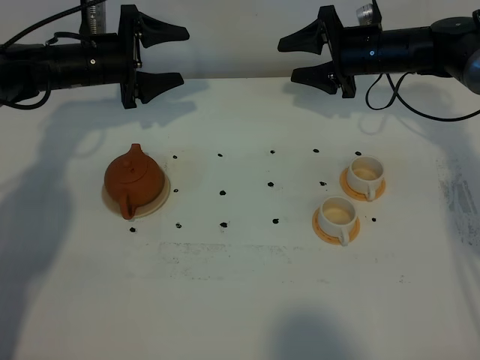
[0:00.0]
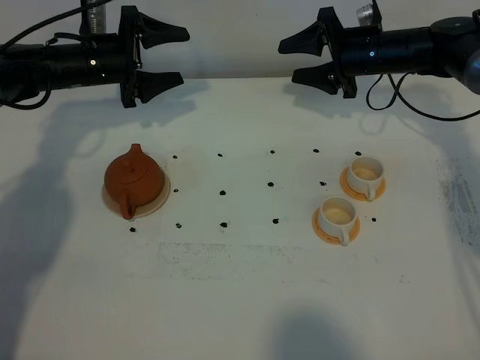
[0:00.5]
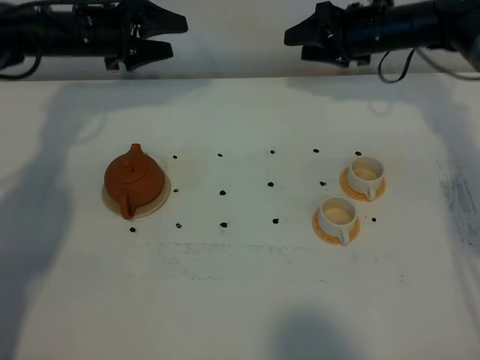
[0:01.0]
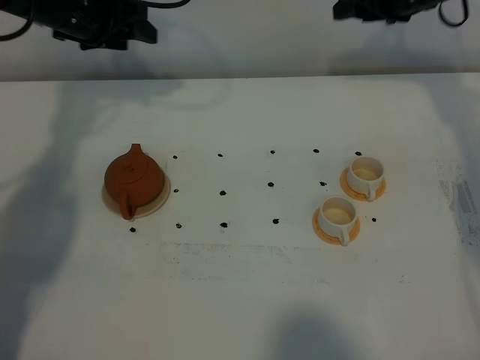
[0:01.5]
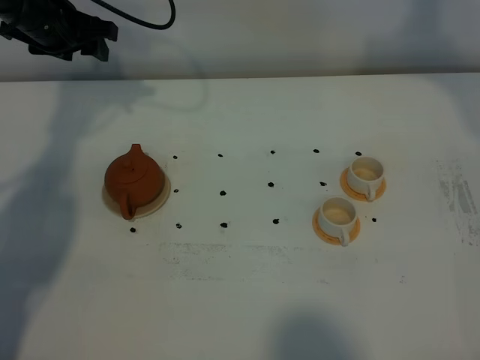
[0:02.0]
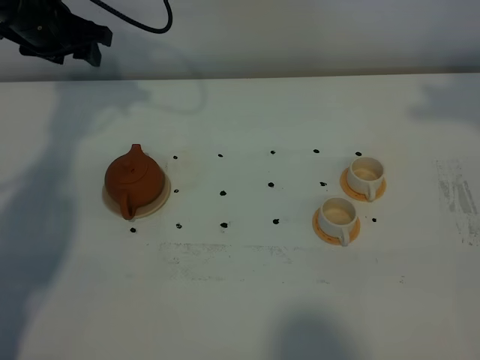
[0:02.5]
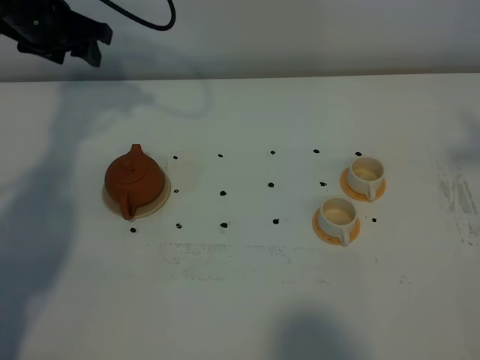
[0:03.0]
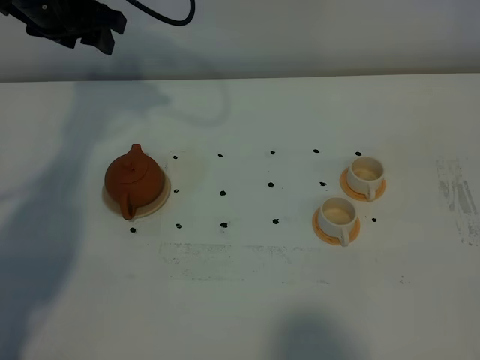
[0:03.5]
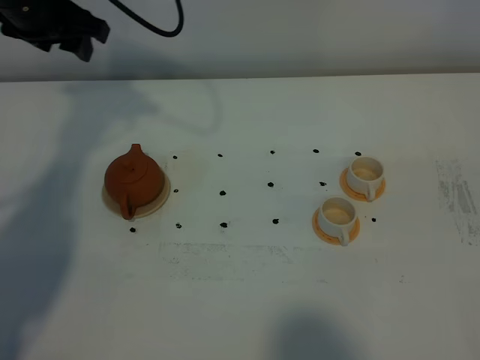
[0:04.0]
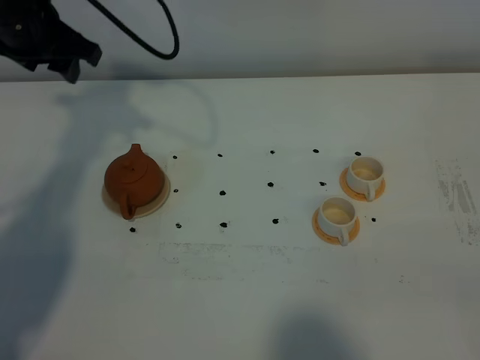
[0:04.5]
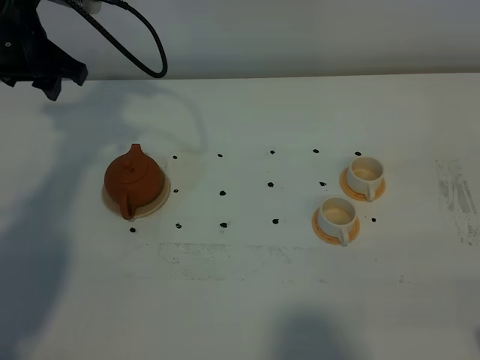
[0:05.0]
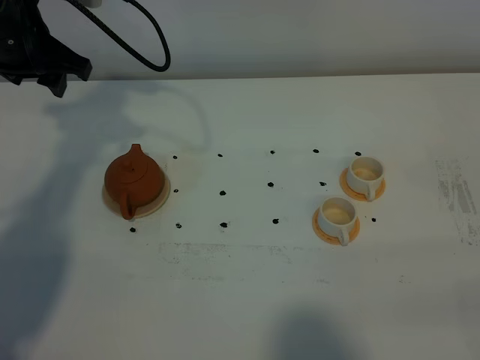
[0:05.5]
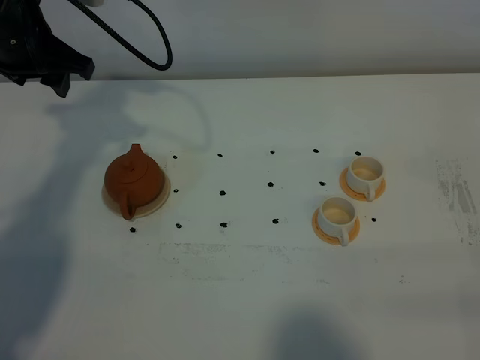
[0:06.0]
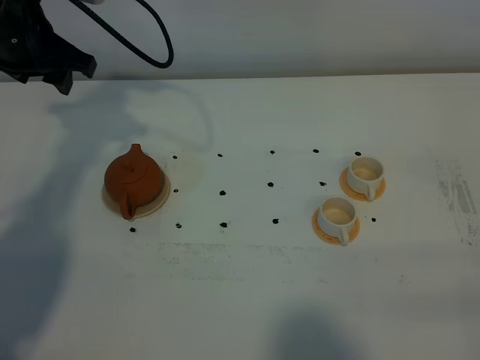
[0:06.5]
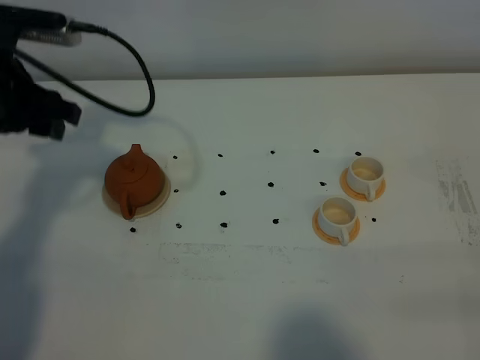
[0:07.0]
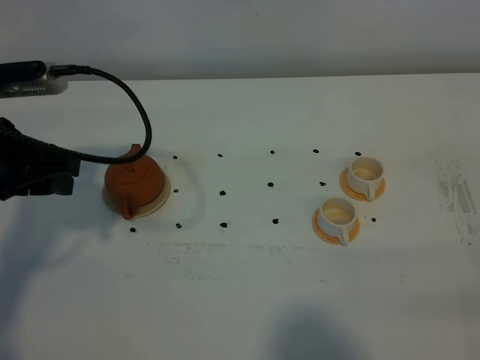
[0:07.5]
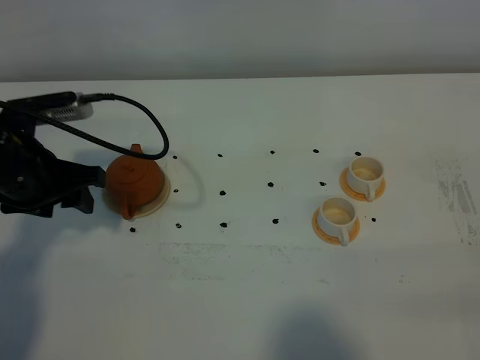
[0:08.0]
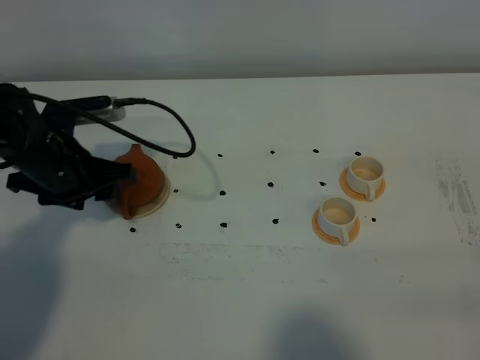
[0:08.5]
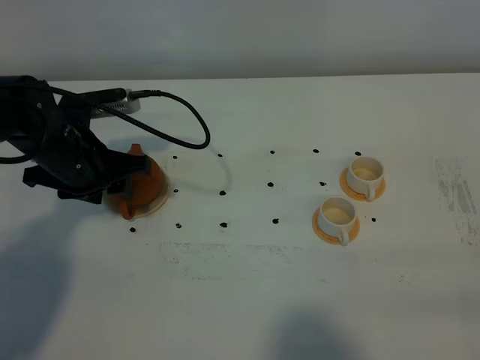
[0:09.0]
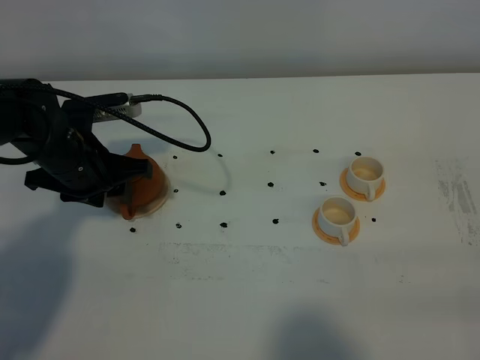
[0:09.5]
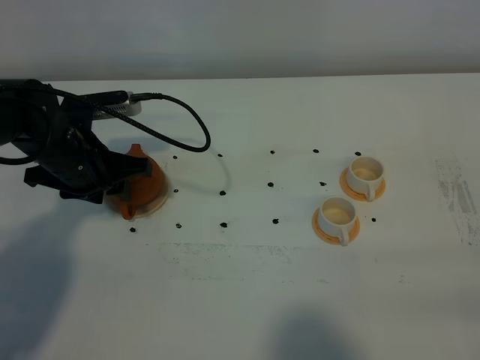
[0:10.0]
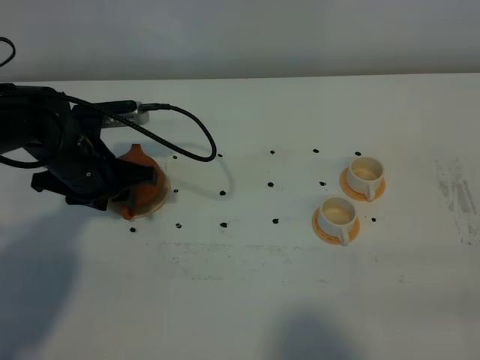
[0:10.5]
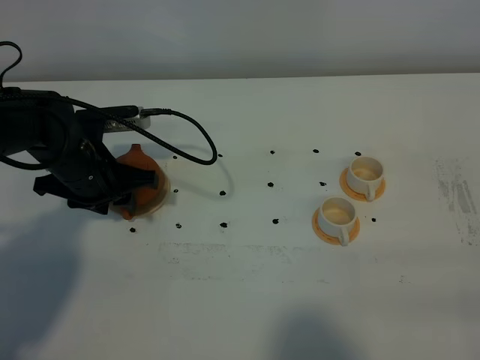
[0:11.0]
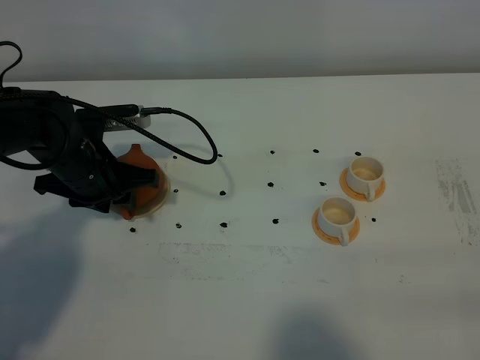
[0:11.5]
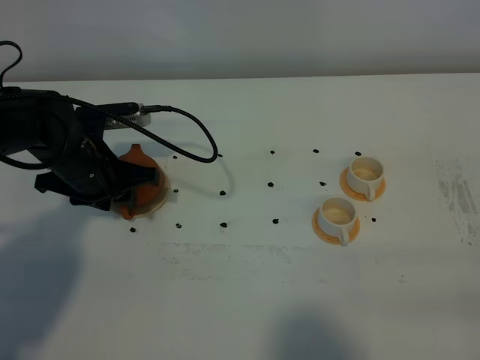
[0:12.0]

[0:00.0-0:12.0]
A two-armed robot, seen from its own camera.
Task of the whole recording: grasp the brown teapot and pour the tea into the two white teacups one by one, put the brown teapot back in its original place.
0:00.0 to 0:02.0: The right gripper shifts roughly 20 cm upward, while the left gripper moves upward, roughly 10 cm.
0:02.0 to 0:04.0: The left gripper travels upward and backward by roughly 10 cm.
0:06.0 to 0:08.0: The left gripper is displaced downward and backward by roughly 15 cm.
0:08.0 to 0:10.0: The left gripper shifts by some 5 cm.
0:10.0 to 0:12.0: The grippers stay close to where they were, moving slightly.

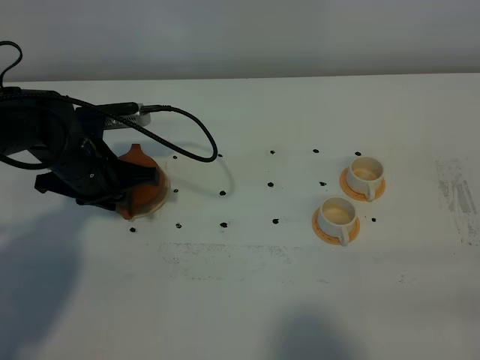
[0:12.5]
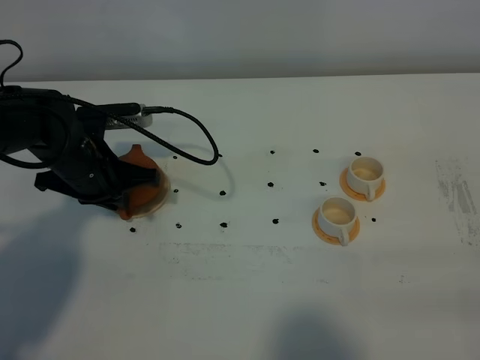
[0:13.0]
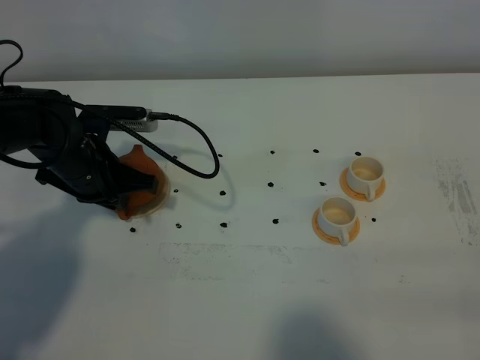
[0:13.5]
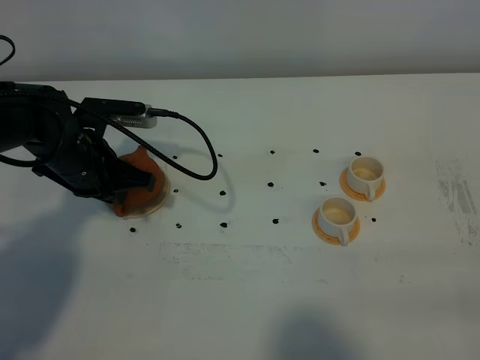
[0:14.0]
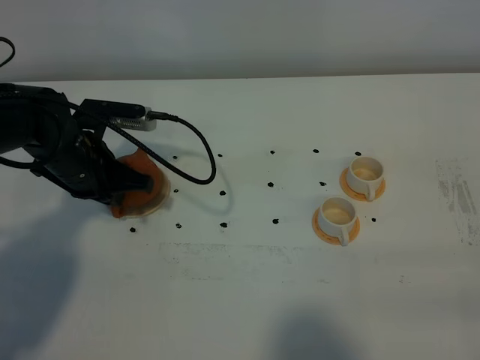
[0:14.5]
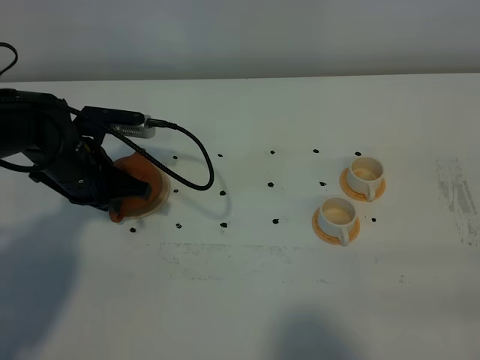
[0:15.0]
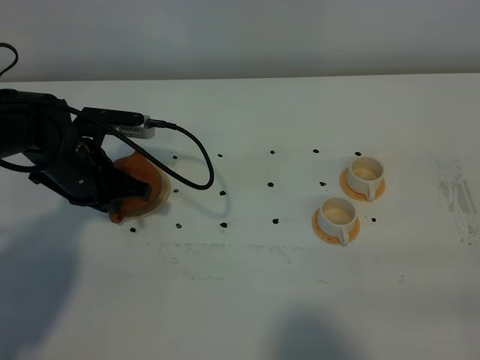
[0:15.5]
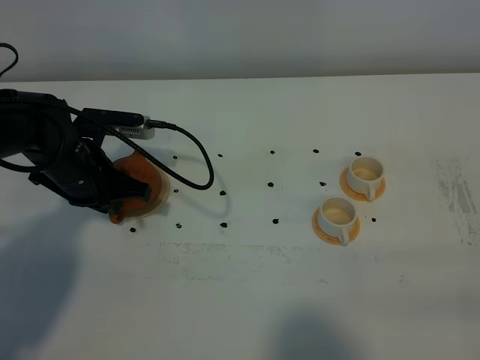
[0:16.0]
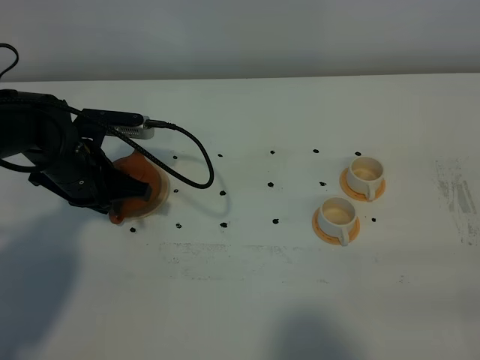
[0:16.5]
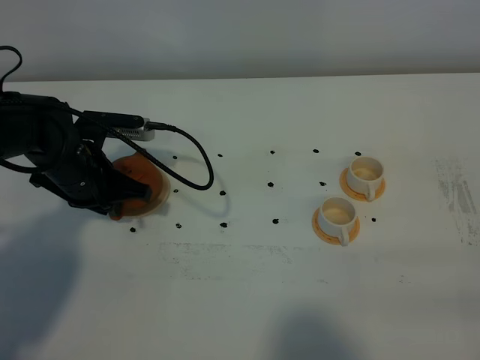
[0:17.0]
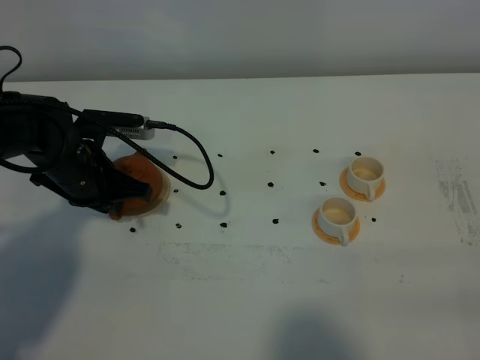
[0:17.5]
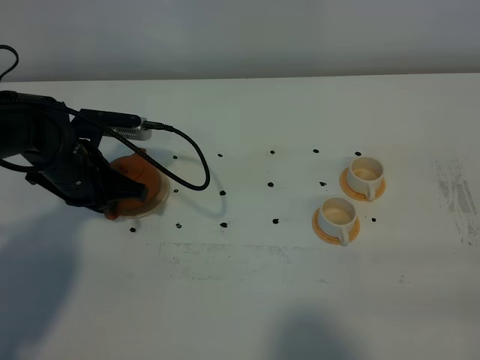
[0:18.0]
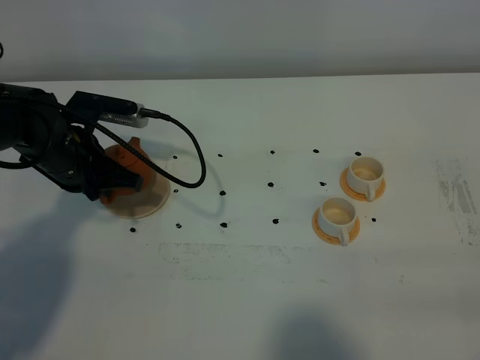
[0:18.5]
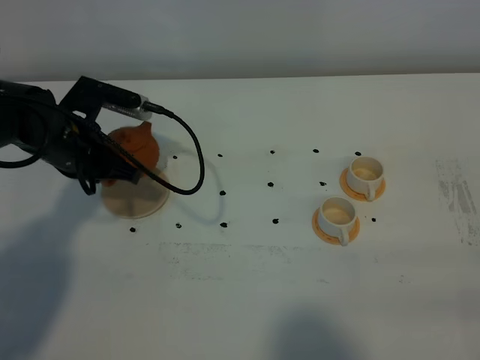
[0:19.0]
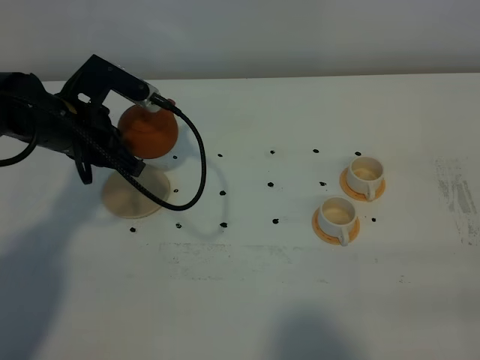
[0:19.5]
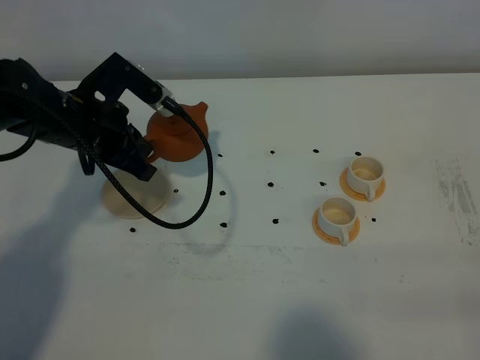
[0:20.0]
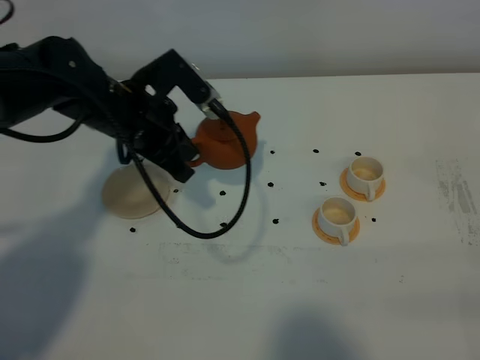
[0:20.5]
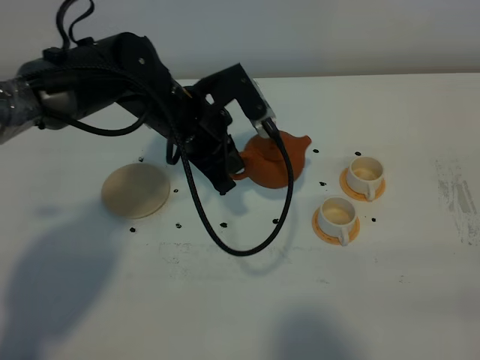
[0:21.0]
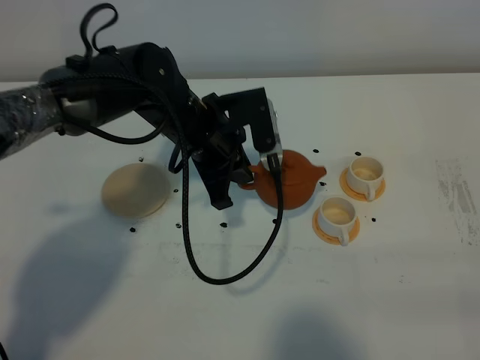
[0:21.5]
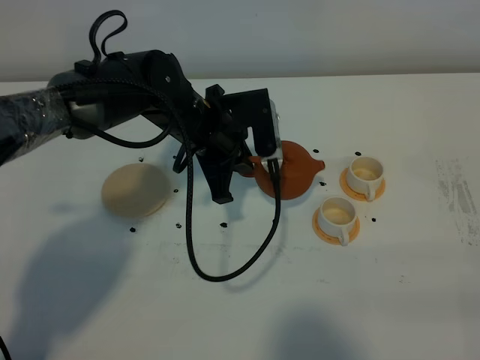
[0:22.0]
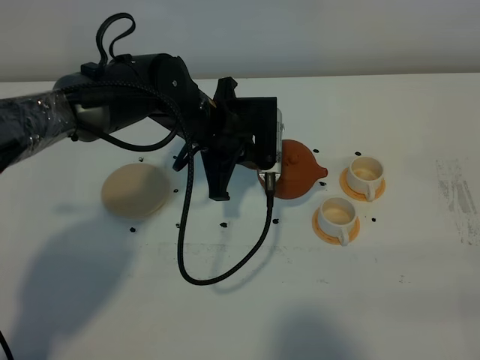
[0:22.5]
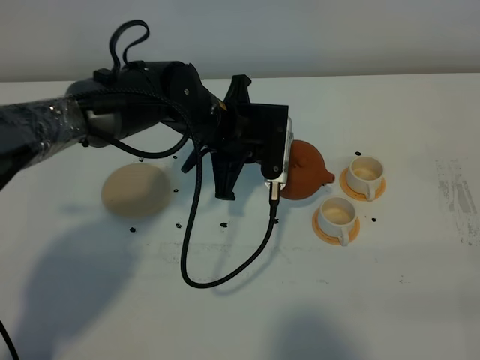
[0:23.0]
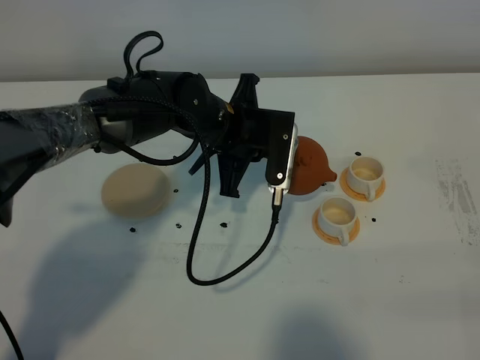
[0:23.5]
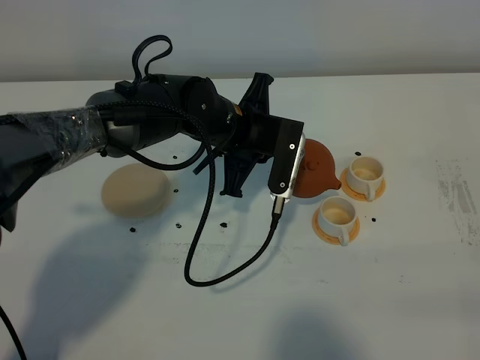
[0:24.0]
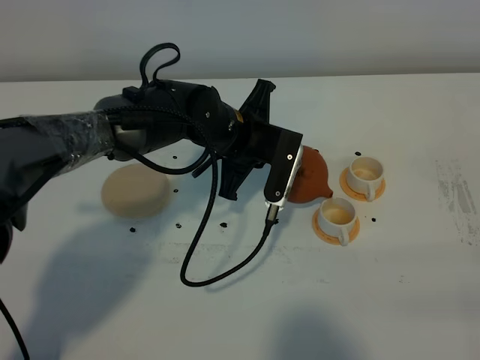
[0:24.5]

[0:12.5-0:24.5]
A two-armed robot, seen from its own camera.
Task of the whole recording: grasp the brown teapot and pour the tea into the two white teacups one by one, put the brown teapot back in its original place.
Step, 0:12.5 to 0:18.0: Pick up the teapot with the left gripper.
0:12.5 to 0:14.5: The grippers move only a little.
0:14.5 to 0:16.5: Both grippers stay about where they are.
0:16.5 to 0:18.5: The grippers make only small movements.
0:18.5 to 0:20.5: The left gripper goes some 10 cm to the right.
0:20.5 to 0:22.5: The left gripper is displaced to the right by roughly 10 cm.

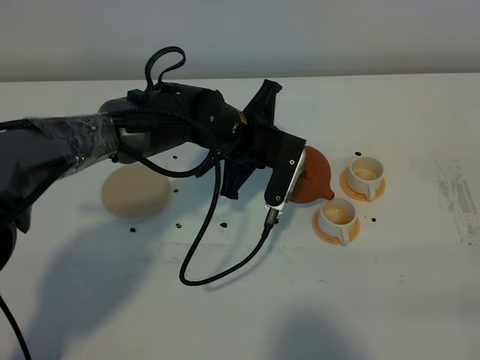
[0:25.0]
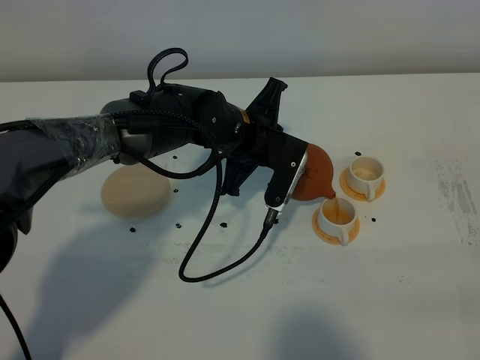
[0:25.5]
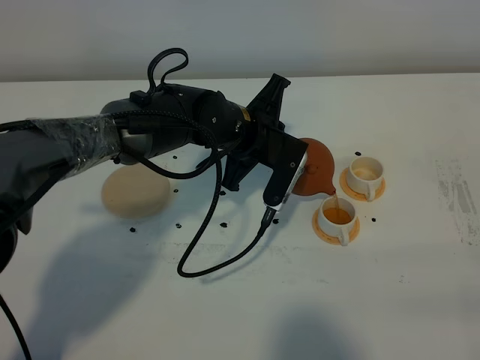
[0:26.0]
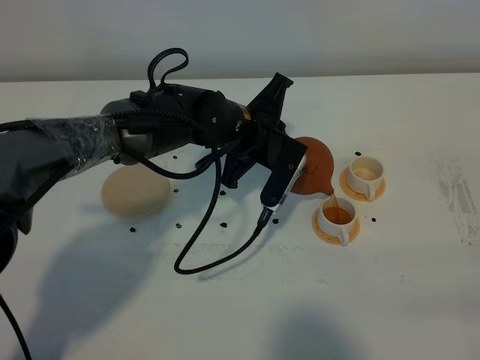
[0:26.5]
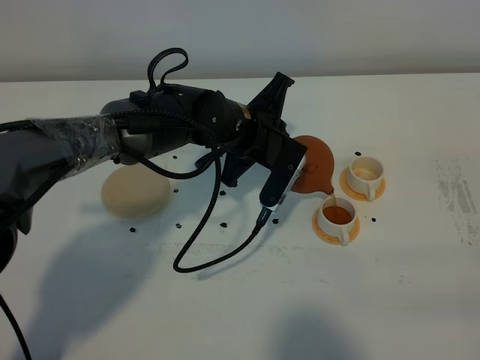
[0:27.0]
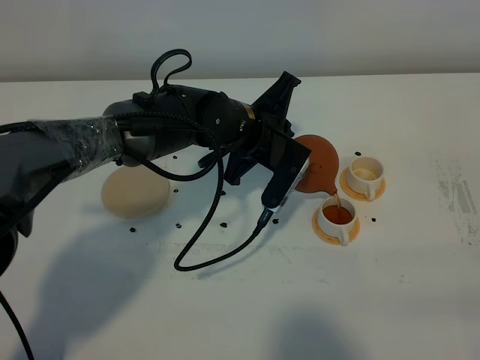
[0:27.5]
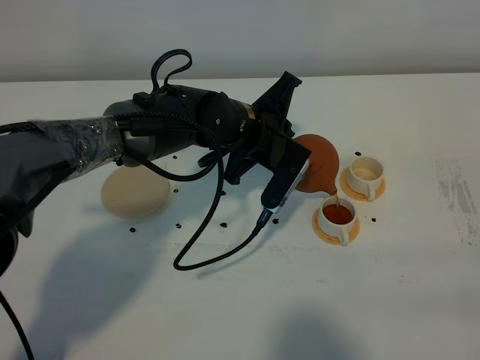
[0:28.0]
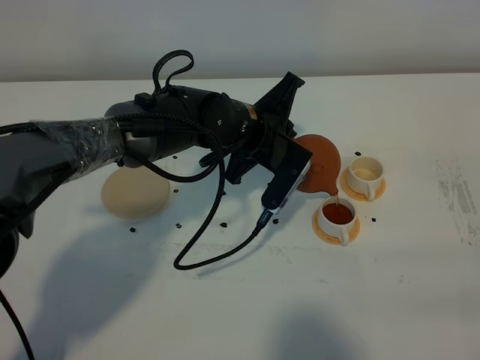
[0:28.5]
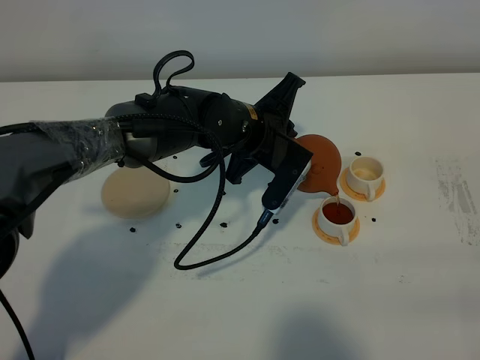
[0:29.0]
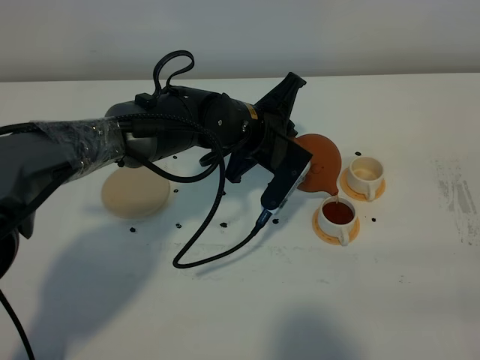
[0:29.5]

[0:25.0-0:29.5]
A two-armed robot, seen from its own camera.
Task of the whole recording: grasp the brown teapot and pour the tea into the two white teacups one by one, put the brown teapot back in its original place.
0:25.0 to 0:29.5: The grippers stay close to where they were, moving slightly.
